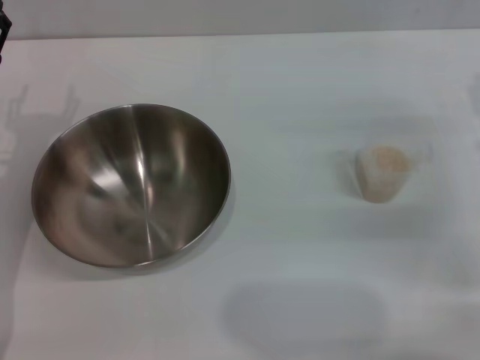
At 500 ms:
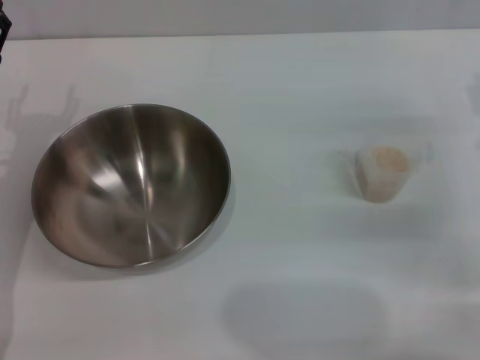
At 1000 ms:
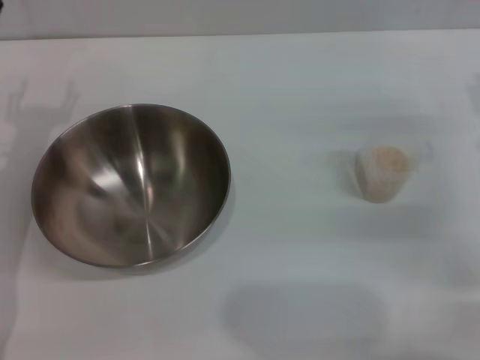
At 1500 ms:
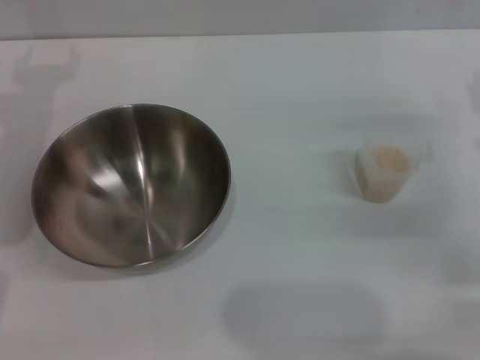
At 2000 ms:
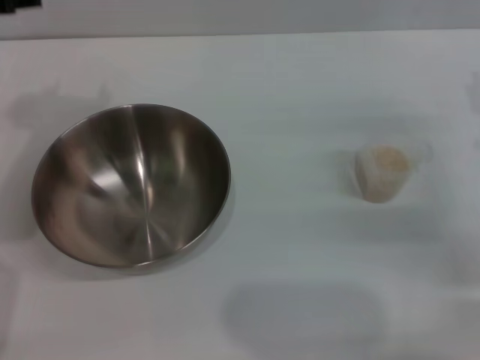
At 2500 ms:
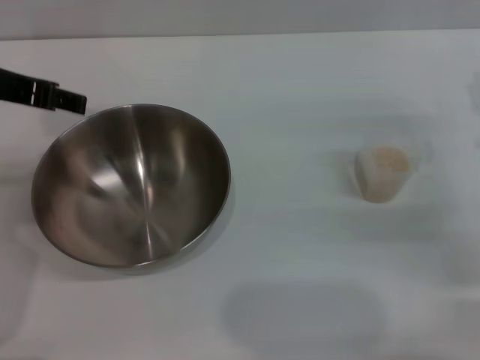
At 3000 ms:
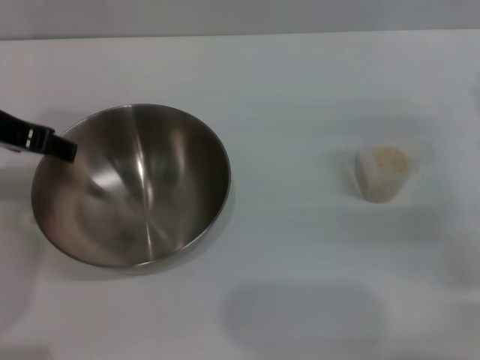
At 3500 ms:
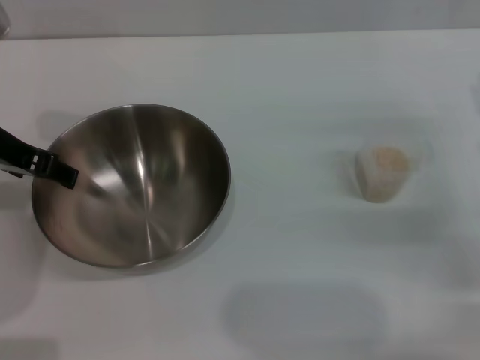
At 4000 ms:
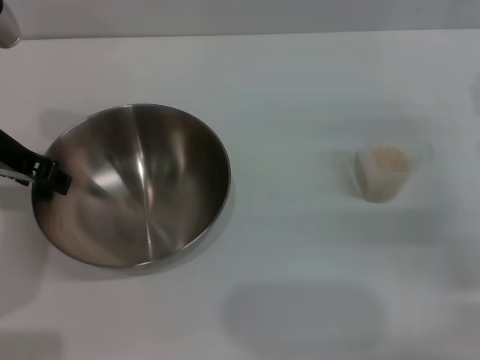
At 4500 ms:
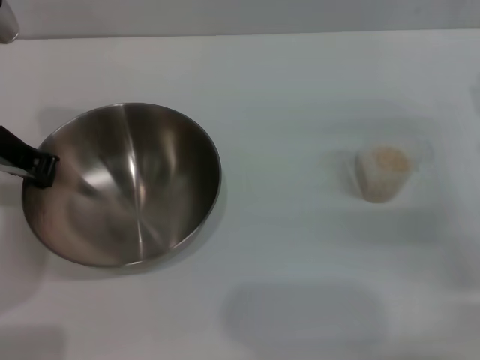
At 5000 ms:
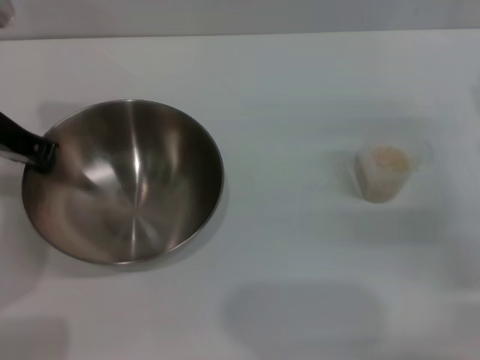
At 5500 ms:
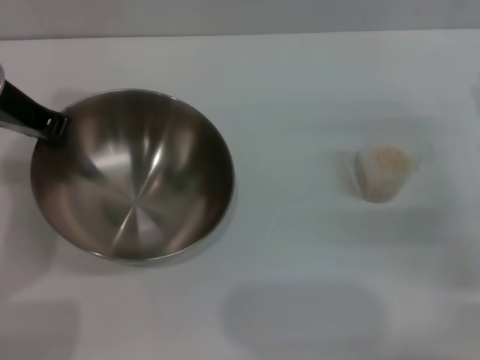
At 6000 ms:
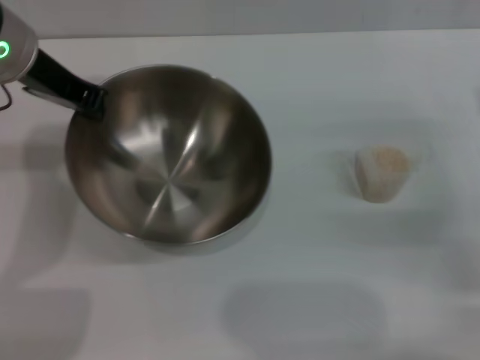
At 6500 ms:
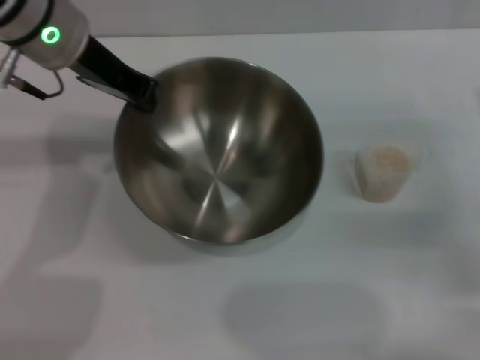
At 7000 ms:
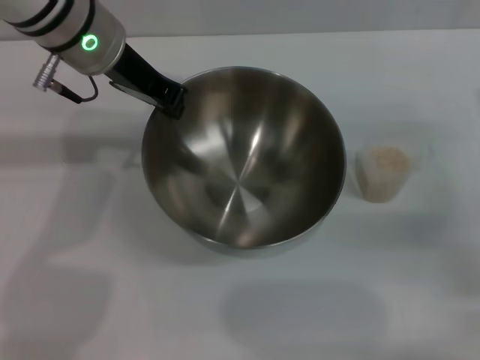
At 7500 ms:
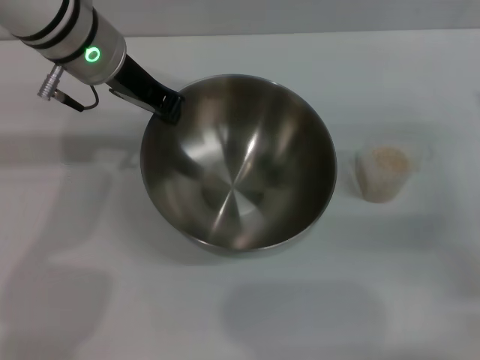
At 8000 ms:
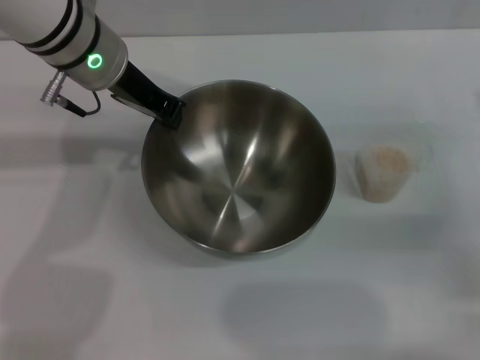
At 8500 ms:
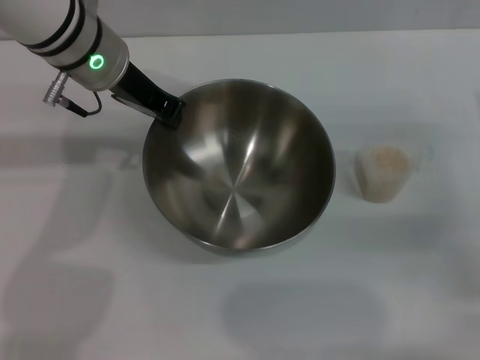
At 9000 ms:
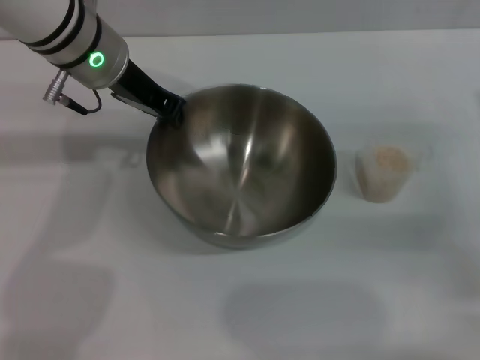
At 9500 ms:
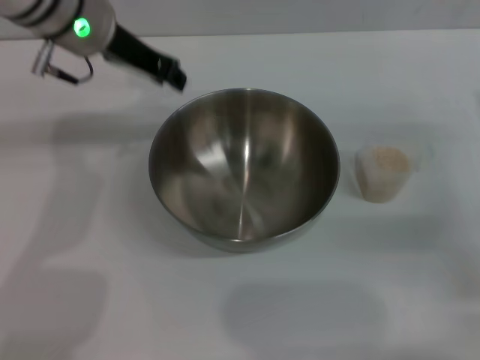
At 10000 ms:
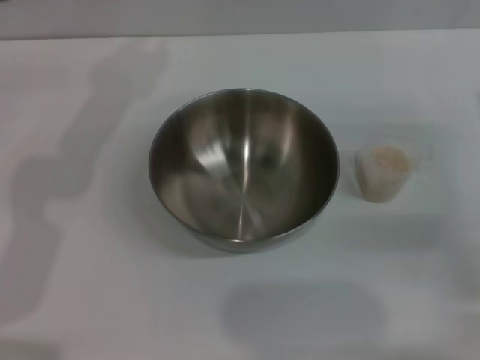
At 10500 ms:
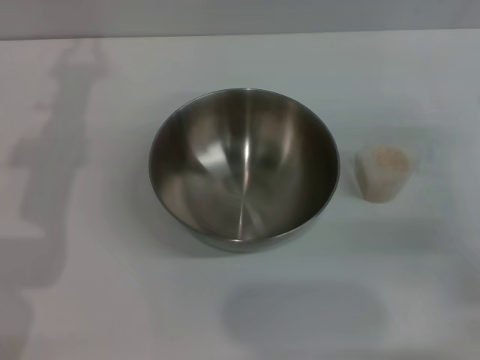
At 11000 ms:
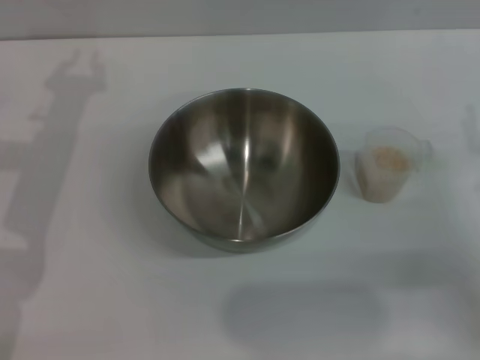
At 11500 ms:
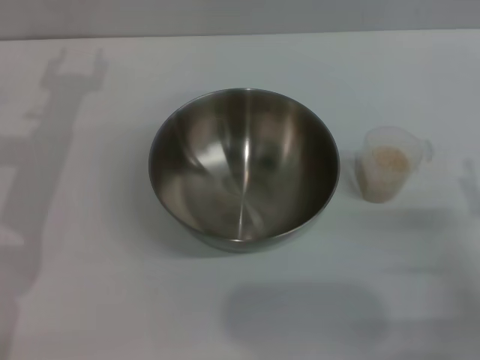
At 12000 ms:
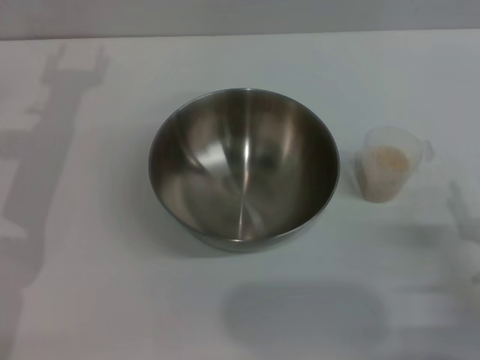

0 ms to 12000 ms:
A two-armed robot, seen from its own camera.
Task of the whole recording: Place the bowl in the middle of the table with one hand and pour the rice from the grain cup into it with the other hand.
0 ms to 2000 ms: The left gripper heads upward, covering approximately 20 cm.
2000 ms to 4000 ms: The left gripper is displaced downward by some 5 cm.
4000 ms to 6000 ms: The left gripper goes about 5 cm upward, and closes its fingers.
6000 ms to 8000 ms: The left gripper shifts roughly 5 cm to the right.
8000 ms to 10000 ms: The left gripper shifts some 10 cm upward and to the left.
10000 ms to 12000 ms: The right gripper moves backward and downward, approximately 15 cm.

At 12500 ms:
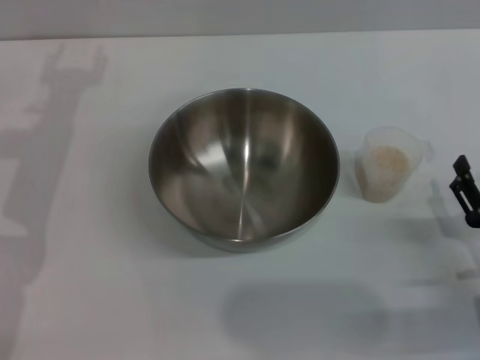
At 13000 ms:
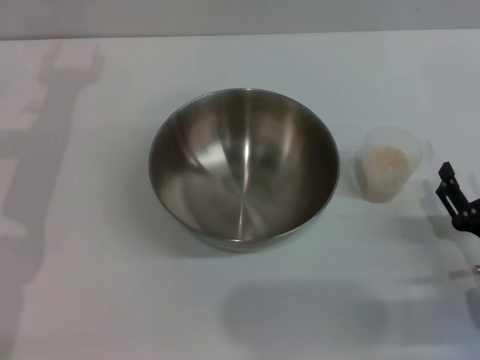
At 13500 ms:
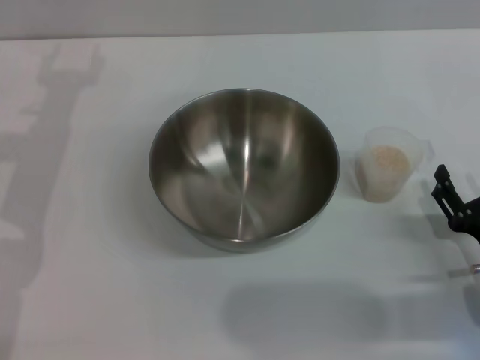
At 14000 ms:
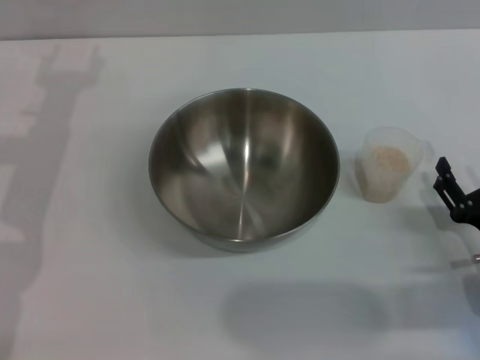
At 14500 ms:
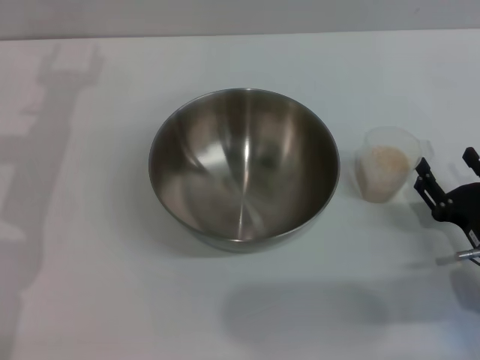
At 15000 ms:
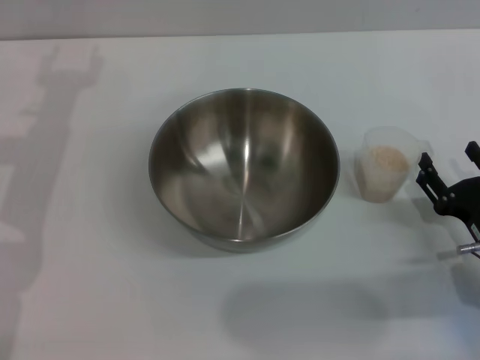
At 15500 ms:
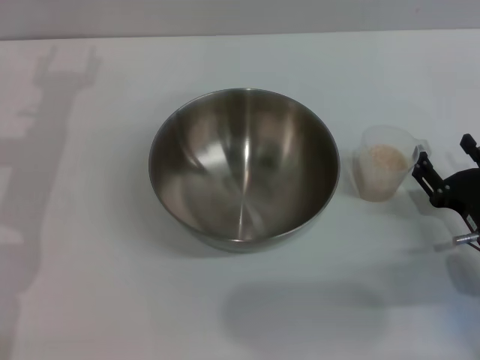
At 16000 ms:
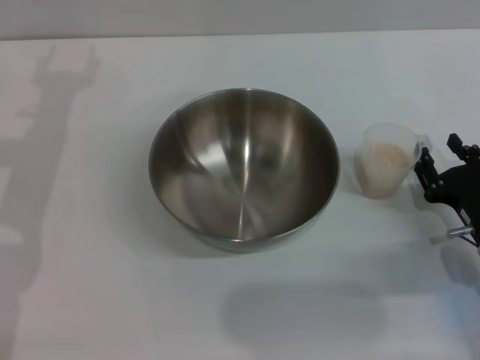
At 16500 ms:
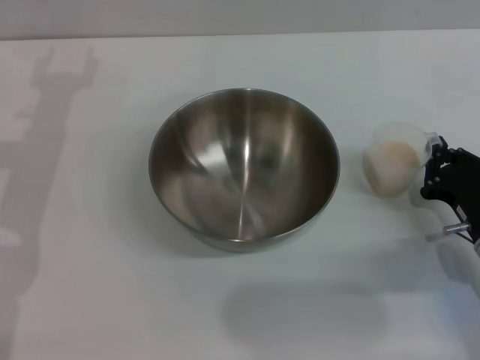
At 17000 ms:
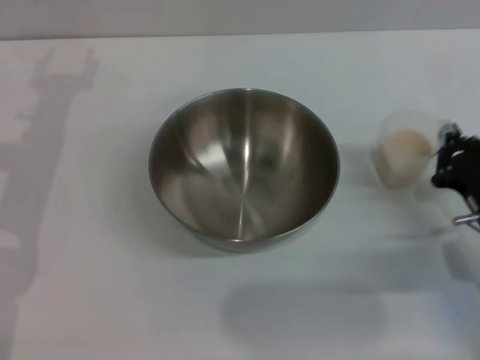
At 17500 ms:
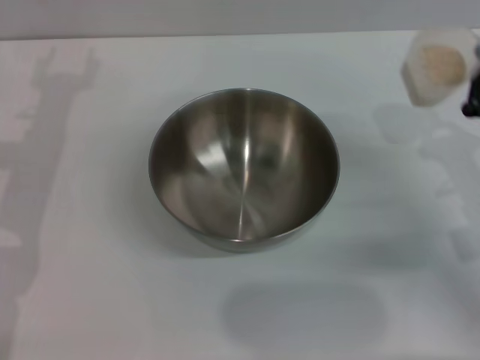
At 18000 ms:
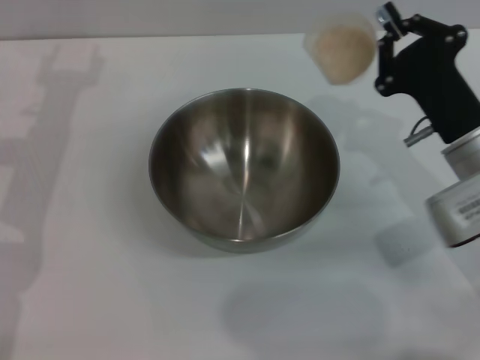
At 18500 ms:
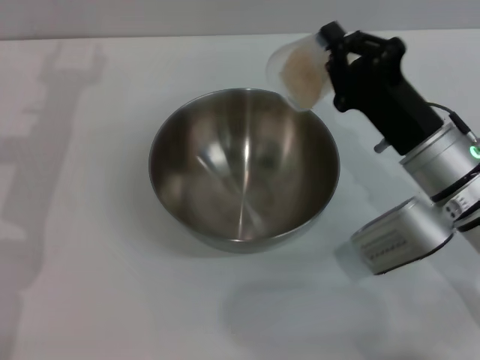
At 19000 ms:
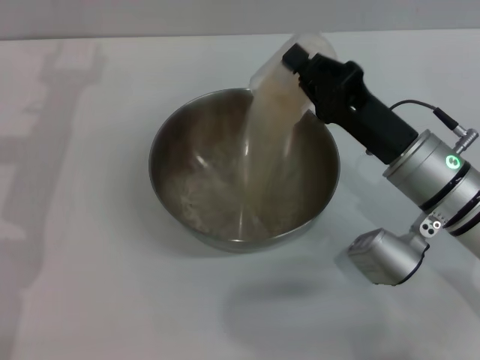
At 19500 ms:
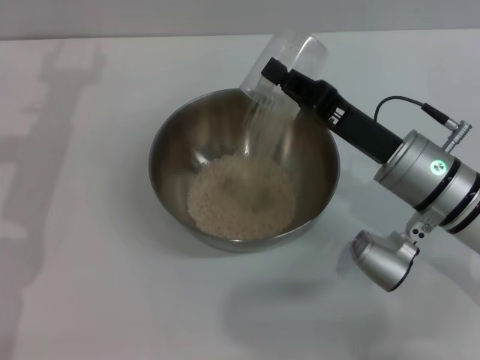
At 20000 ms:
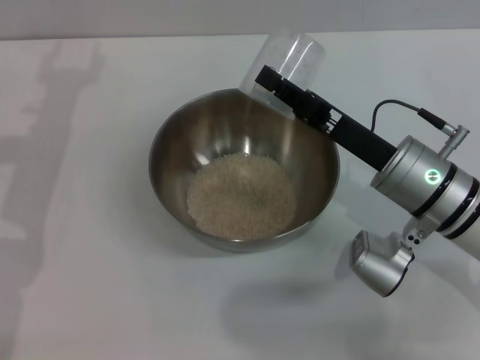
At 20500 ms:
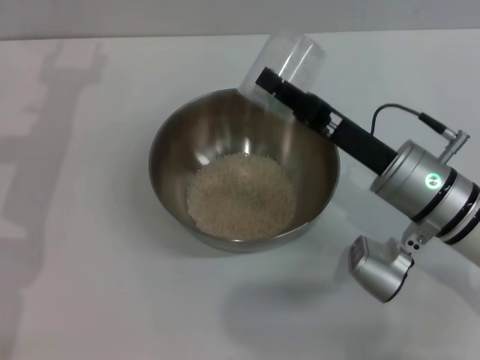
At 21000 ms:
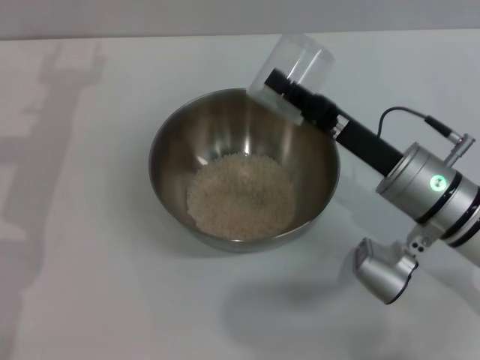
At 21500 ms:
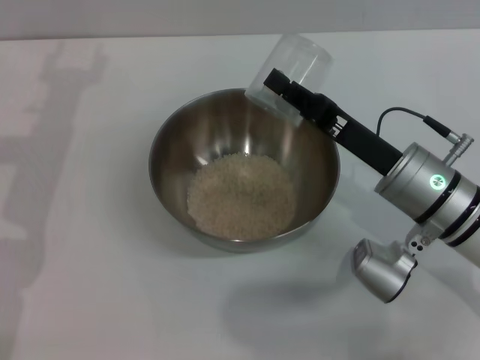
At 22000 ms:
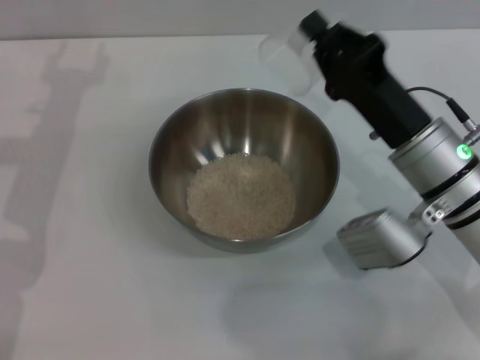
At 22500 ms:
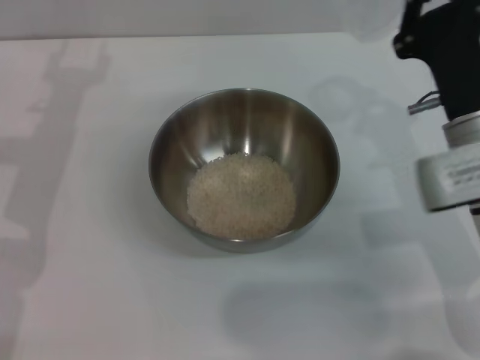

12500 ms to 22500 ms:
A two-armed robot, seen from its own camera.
Task of the whole recording: Place the bowl in the middle of the table with one hand and pour the rice from the grain cup into it with the other hand.
Step, 12500 ms to 18500 ms: Pick up the cup with rice in it with the right gripper.
Step, 19000 ms to 20000 ms: Pour the rice from the cup into the bowl with the right gripper.
12500 ms to 14500 ms: The grippers stay close to where they were, moving slightly.
14500 ms to 16500 ms: The right gripper closes up.
16500 ms to 18500 ms: The right gripper moves to the left, upward and forward, some 15 cm.

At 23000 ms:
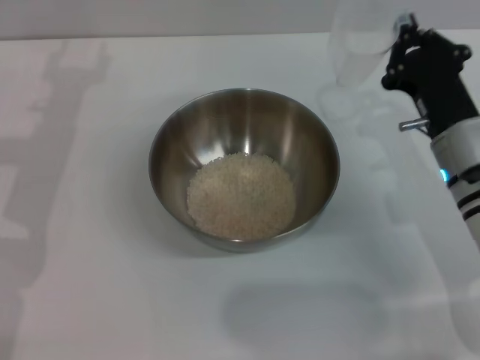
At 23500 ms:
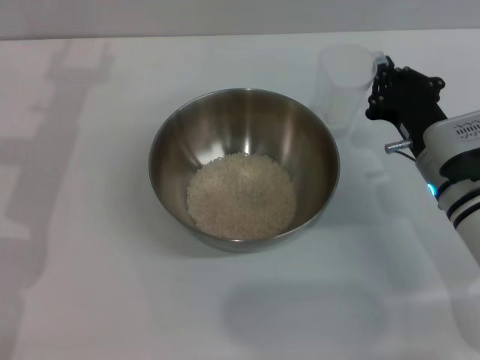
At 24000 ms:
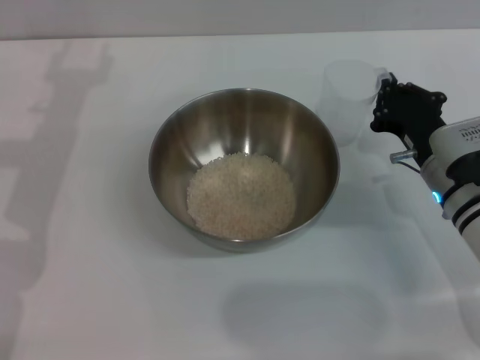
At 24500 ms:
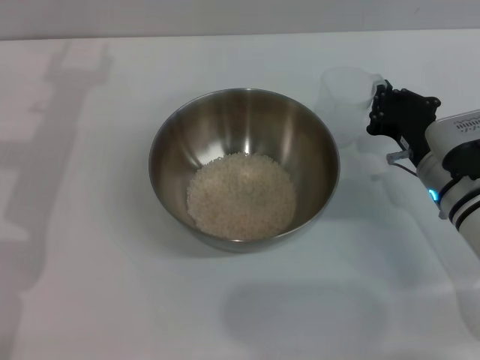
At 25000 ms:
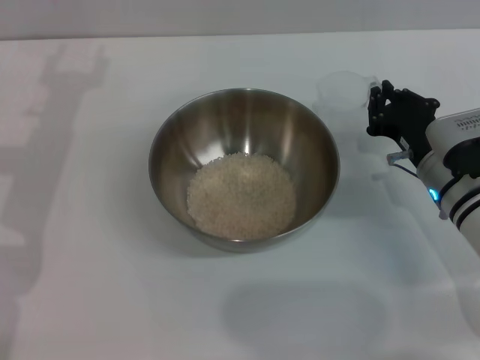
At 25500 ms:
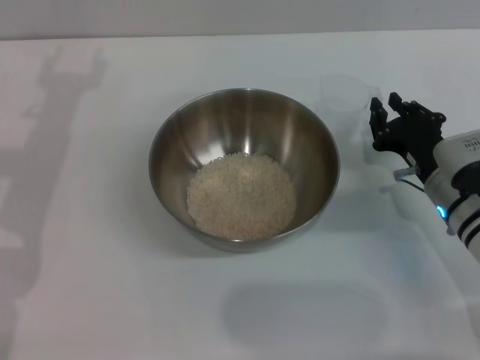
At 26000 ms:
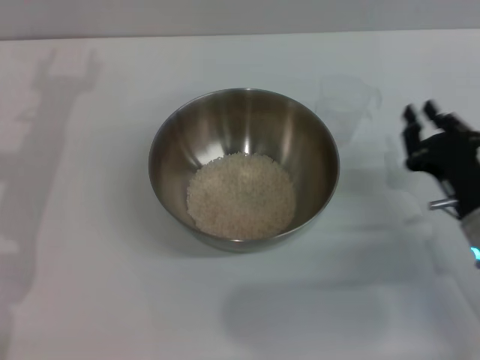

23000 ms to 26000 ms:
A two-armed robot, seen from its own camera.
Task of the whole recording: Place the bowl in the middle of the table with one hand and pour the rice from the grain cup into it with the other hand.
23000 ms to 24500 ms: The grippers move only a little.
24500 ms to 26000 ms: The right gripper moves backward, about 10 cm.
